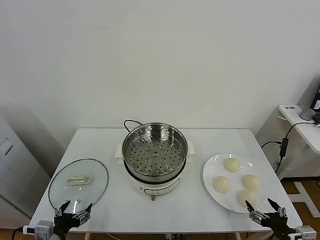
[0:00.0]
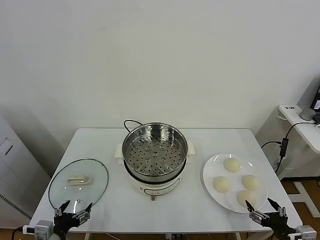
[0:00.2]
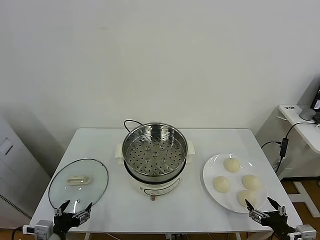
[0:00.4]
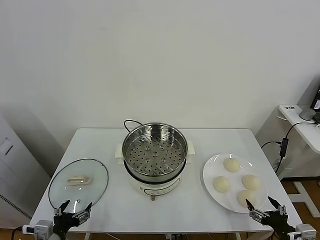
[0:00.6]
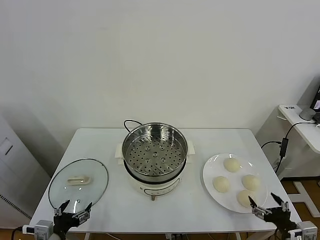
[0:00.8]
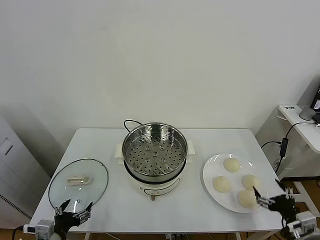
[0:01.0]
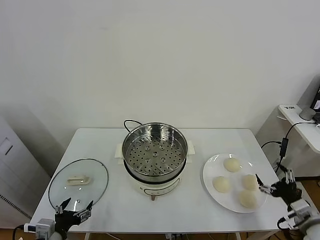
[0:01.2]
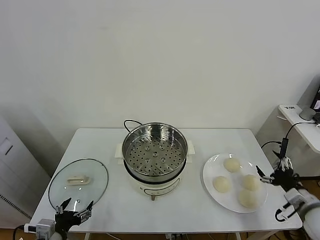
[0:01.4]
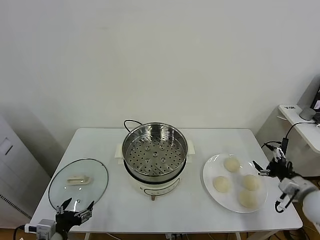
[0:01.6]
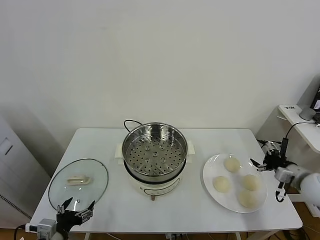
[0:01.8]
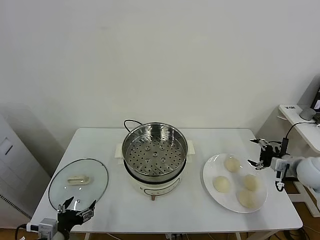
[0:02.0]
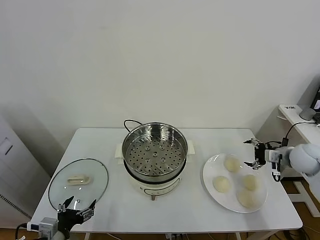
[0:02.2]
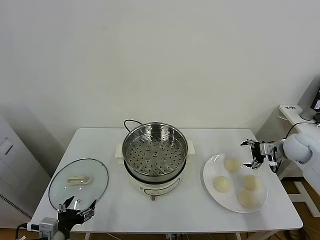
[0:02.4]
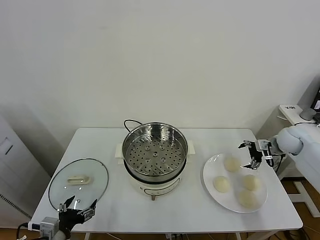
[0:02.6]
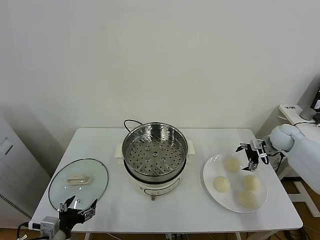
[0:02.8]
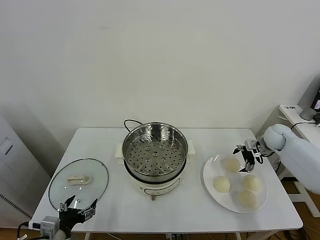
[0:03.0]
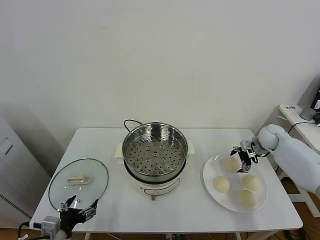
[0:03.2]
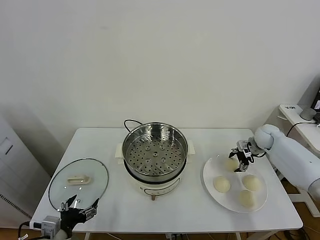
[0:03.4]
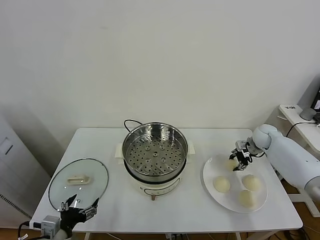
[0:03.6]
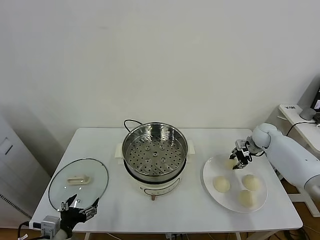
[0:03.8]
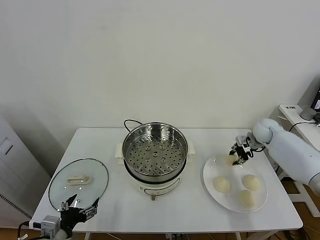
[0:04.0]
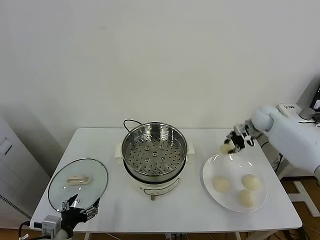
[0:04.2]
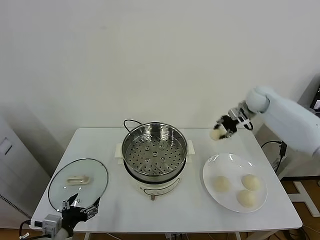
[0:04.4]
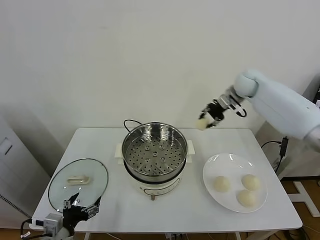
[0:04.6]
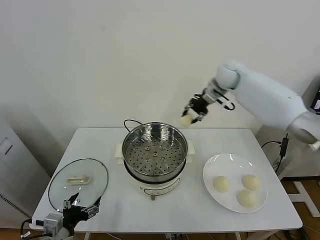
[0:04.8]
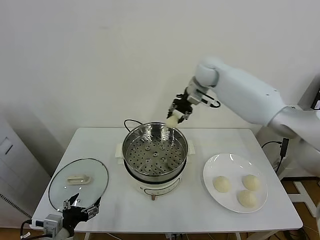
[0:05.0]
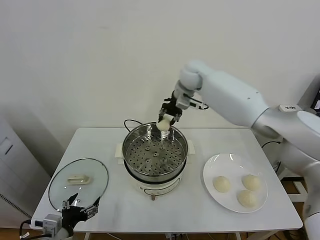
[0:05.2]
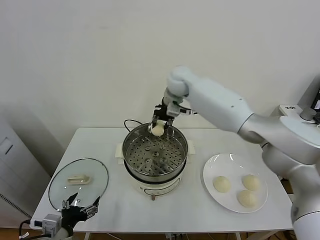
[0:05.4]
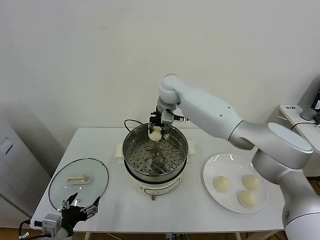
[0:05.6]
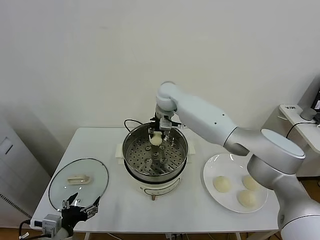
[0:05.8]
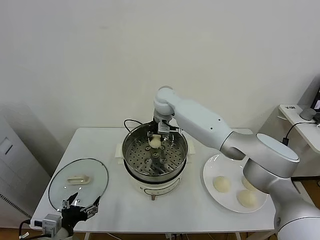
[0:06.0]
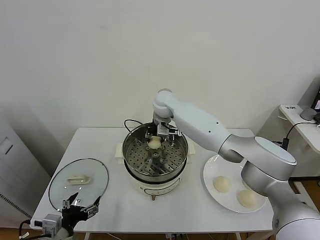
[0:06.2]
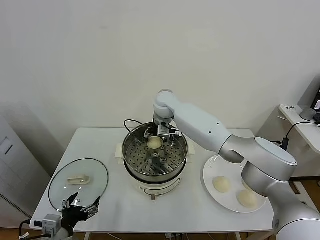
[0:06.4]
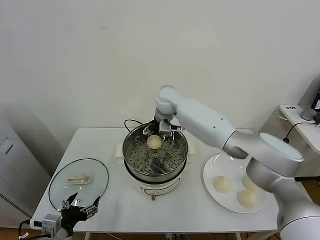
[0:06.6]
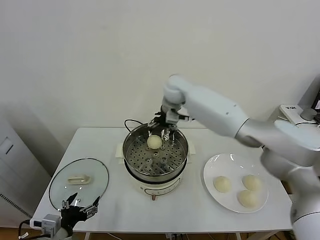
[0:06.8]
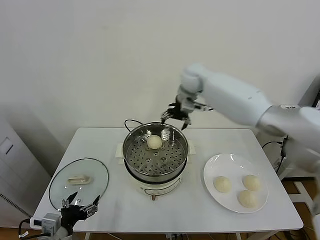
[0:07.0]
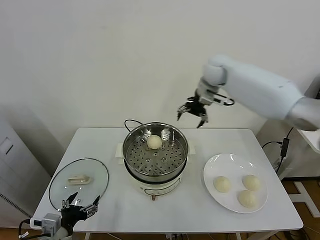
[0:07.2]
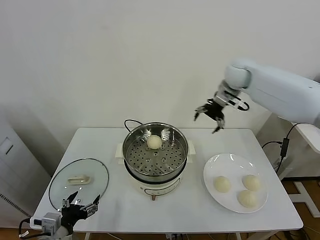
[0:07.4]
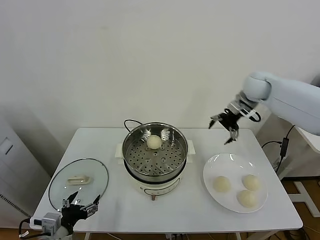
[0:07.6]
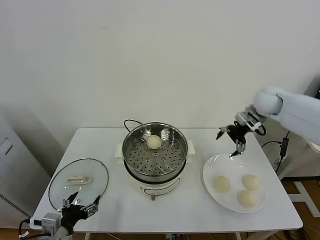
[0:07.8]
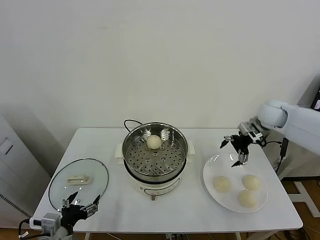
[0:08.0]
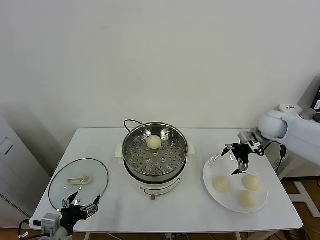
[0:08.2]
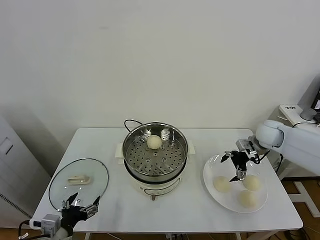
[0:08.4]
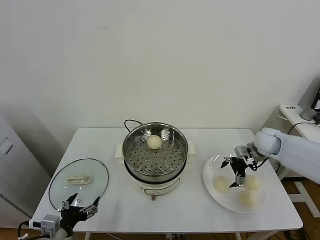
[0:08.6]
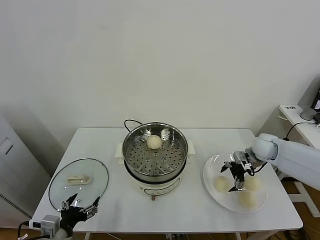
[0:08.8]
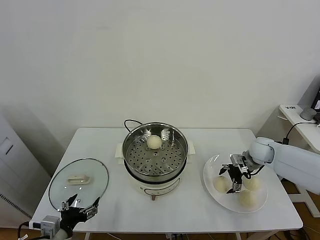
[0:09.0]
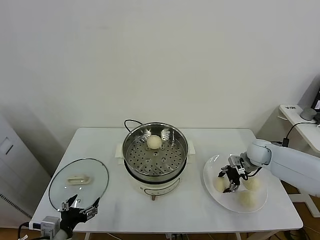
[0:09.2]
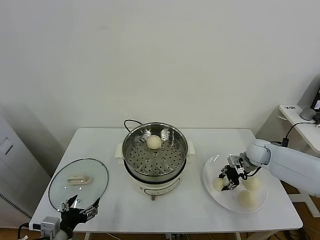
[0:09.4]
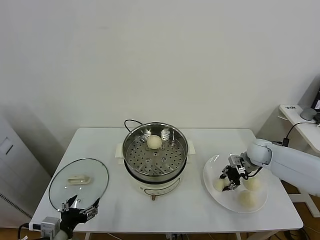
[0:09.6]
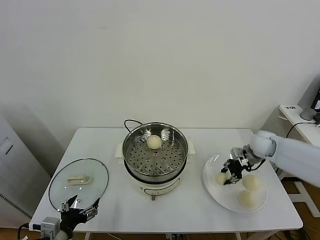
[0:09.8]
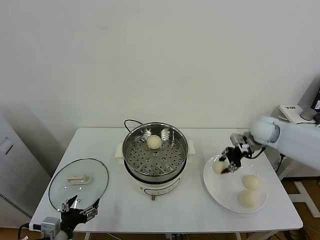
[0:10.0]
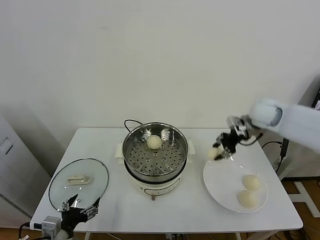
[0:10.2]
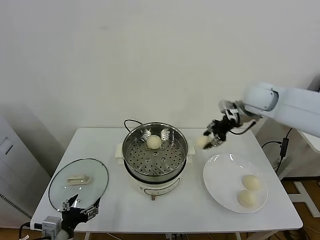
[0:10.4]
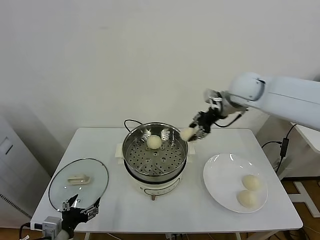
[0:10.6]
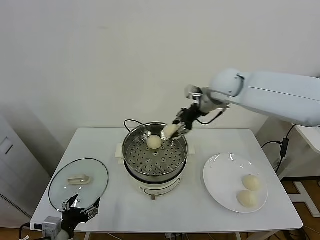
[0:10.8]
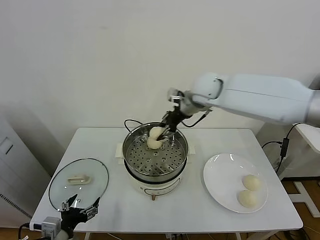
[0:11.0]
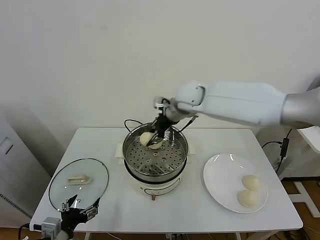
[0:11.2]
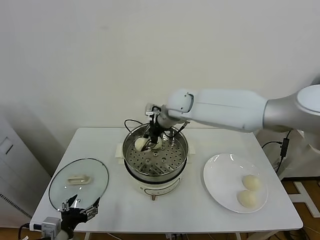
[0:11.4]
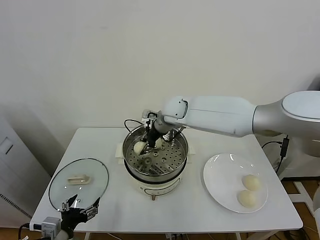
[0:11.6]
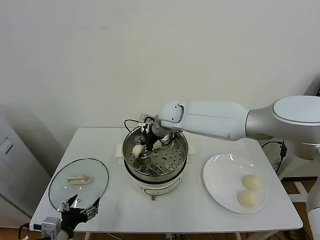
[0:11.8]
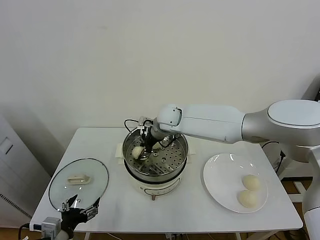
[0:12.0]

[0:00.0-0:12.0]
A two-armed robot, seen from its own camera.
Task of the whole recording: take steamed baozi put them in steamer.
Step, 0.0 to 3.6 s: Grasp the baozi in the plate with right gripper.
Step, 3.8 to 6.4 s: Place the baozi on the steamer with right gripper.
Step, 6.6 to 9.4 s: Grasp the baozi in the plate with right gripper.
1.6 to 3.0 s: The right gripper is displaced forward by roughly 25 cm.
3.0 to 4.4 s: The right gripper goes approximately 20 cm upward, to the left and forward, and closes its fingers.
4.4 to 6.0 s: The right gripper is displaced to the left by approximately 30 cm.
6.0 to 7.6 s: The right gripper travels to the right by about 35 cm, and opens up.
7.6 to 9.0 s: The right gripper moves downward, roughly 20 cm.
9.0 to 10.4 s: The right gripper heads upward and to the left, covering roughly 25 cm, and closes its fingers.
10.4 to 12.0 s: The right gripper travels to the left and downward by approximately 30 cm.

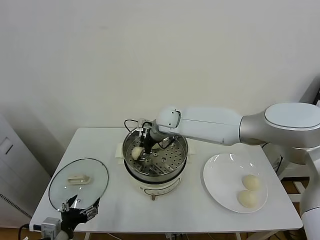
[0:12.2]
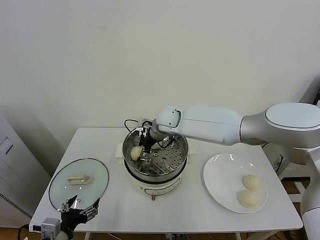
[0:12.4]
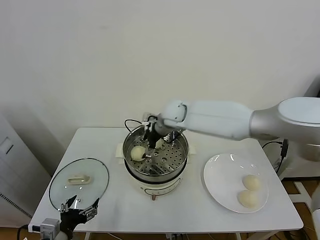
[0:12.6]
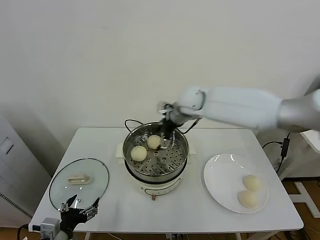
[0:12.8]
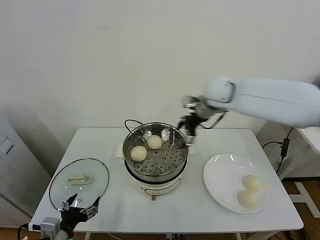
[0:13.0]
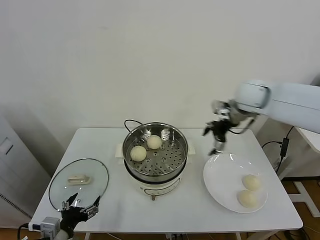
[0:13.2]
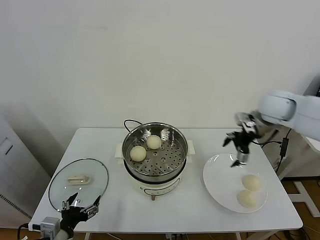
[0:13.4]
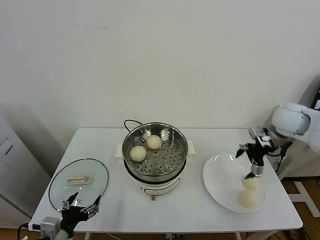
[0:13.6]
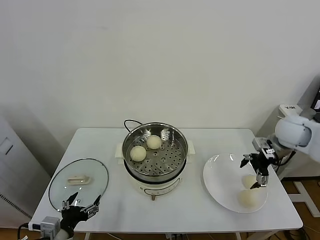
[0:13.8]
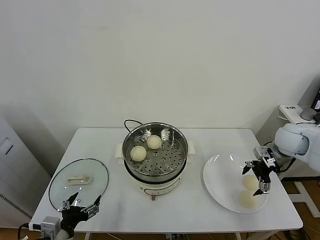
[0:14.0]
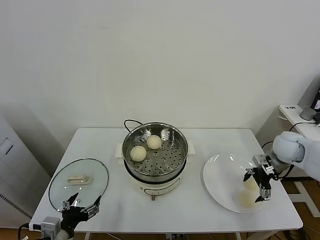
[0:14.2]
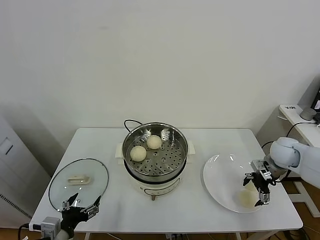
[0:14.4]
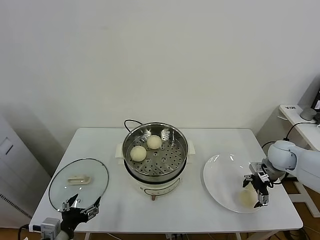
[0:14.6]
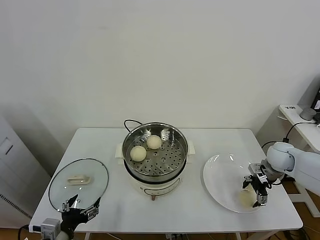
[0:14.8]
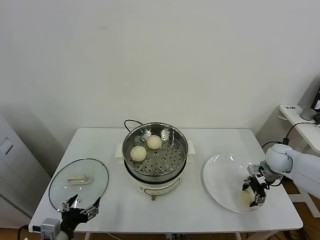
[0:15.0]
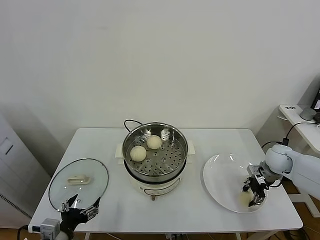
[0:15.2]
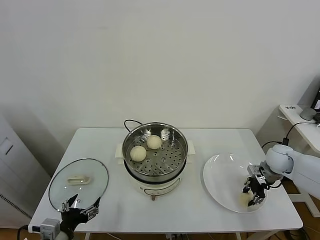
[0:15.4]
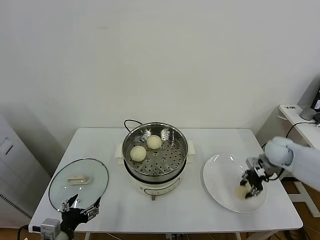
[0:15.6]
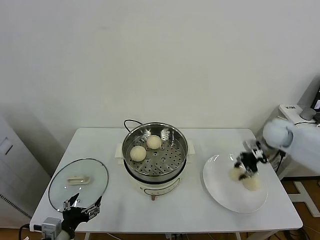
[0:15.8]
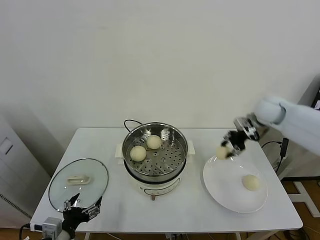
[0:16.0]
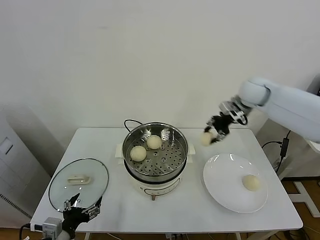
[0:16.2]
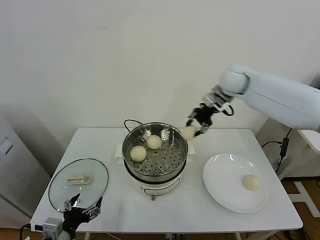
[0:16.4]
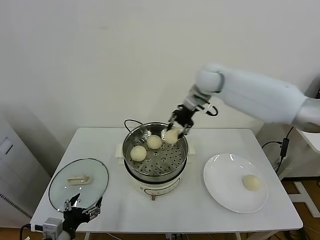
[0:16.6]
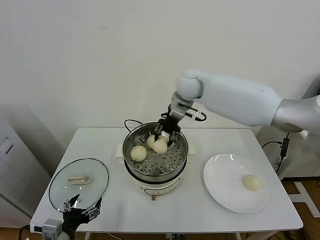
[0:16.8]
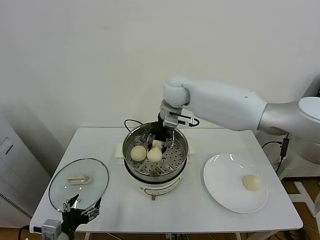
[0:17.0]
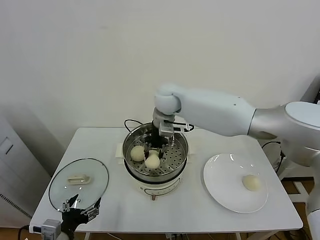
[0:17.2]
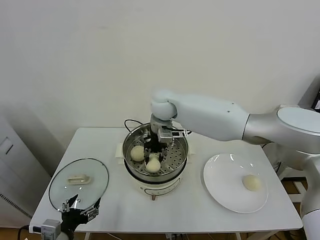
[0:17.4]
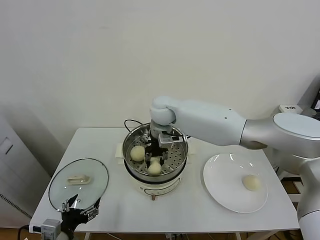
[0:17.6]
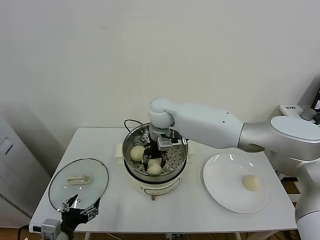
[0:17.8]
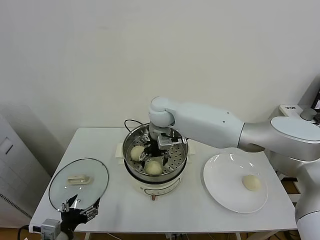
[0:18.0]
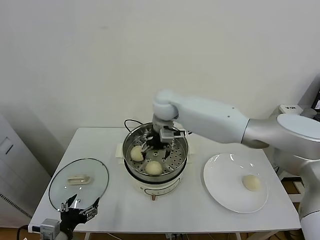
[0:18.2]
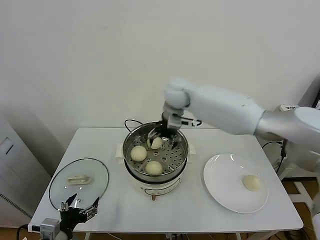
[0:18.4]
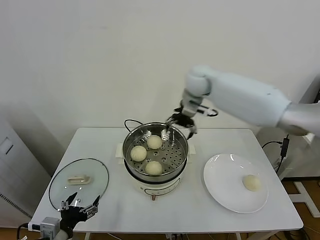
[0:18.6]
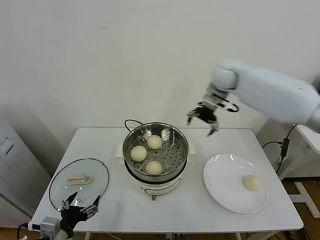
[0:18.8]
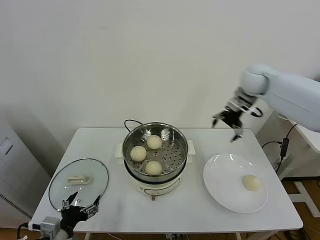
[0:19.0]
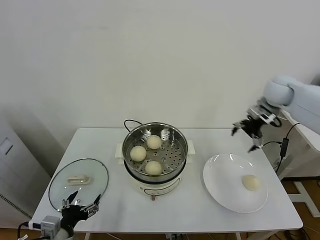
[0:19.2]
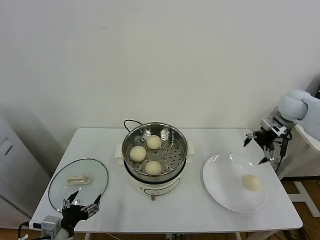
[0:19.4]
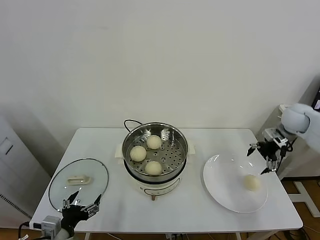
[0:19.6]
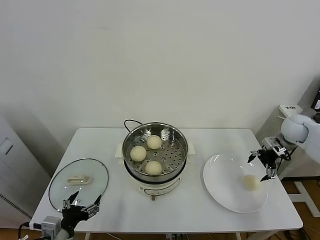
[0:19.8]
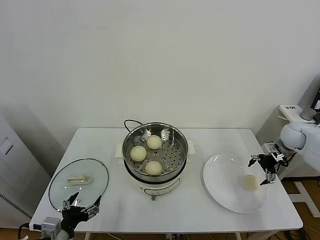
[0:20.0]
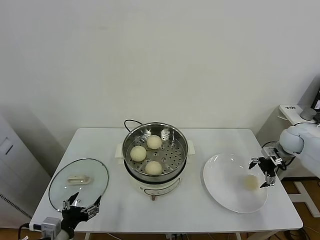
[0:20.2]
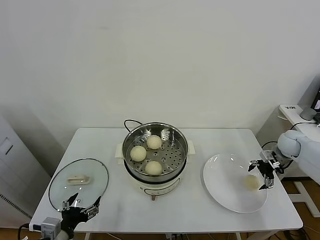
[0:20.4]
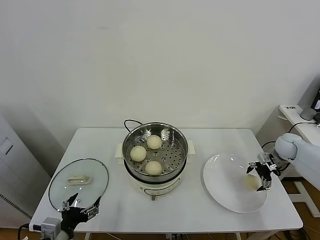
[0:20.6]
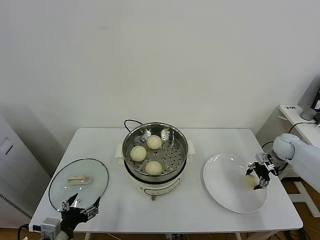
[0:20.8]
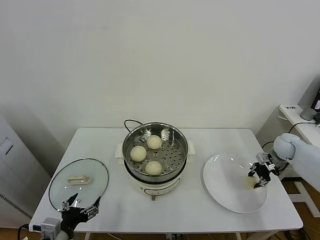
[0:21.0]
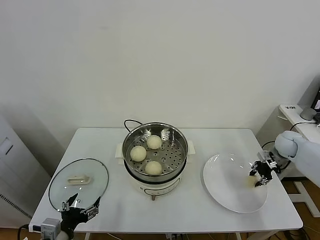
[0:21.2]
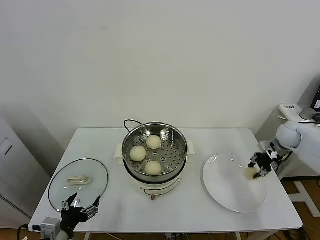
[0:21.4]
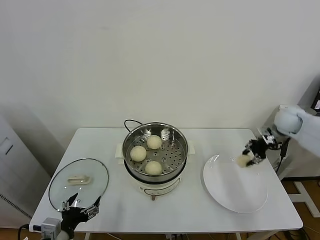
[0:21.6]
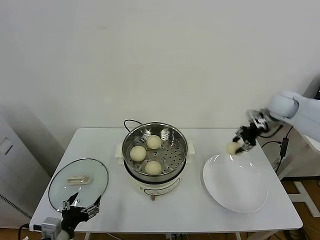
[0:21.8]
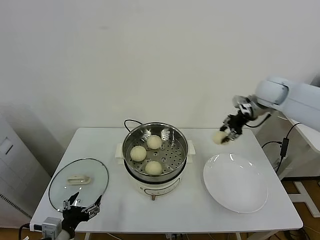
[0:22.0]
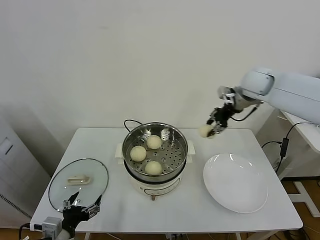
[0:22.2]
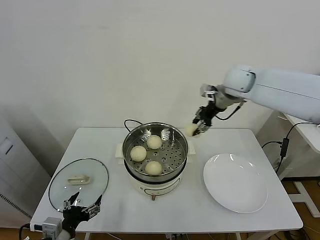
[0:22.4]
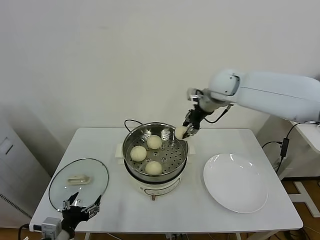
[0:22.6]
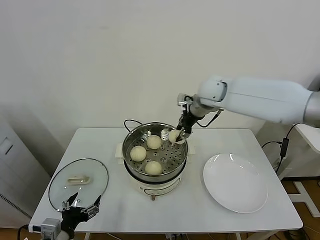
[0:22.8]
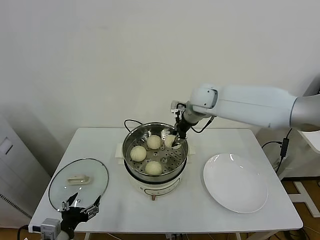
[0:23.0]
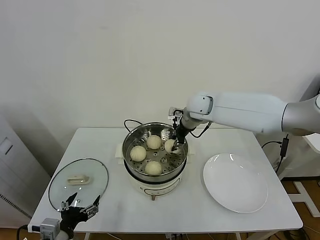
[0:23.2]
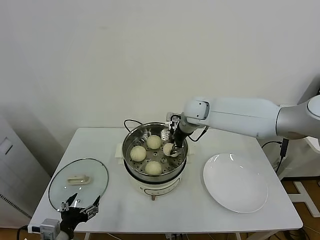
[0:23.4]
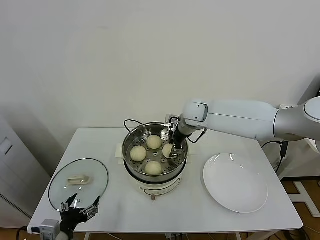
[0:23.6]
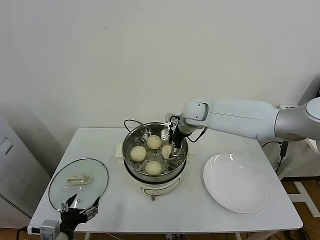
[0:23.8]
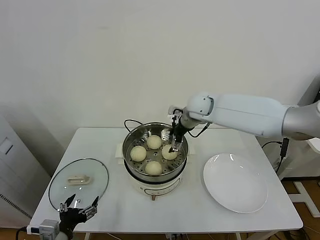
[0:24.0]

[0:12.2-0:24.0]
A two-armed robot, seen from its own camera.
Task of the whole recording: take steamed baozi put them in steamer.
Step, 12.8 to 15.0 s: Grasp the baozi in the plate with right gripper.
Step, 15.4 to 18.0 s: Place the baozi on the steamer with right gripper.
Step, 18.2 to 21.0 s: Grasp the baozi in the plate with right gripper.
Step, 21.2 to 23.8 s: Place the baozi on the steamer with right gripper.
12.2 to 13.6 s: The right gripper goes roughly 35 cm to the right, and opens its fingers.
13.6 to 15.2 s: The right gripper goes roughly 15 cm downward, and closes.
15.2 to 16.6 s: The right gripper travels to the left, upward and forward by roughly 40 cm.
16.6 to 18.2 s: The right gripper is displaced to the left and downward by roughly 15 cm, and opens.
18.2 to 19.6 s: The right gripper travels to the right by roughly 40 cm.
19.6 to 21.0 s: The right gripper is displaced downward by about 15 cm, and closes its fingers.
21.0 to 22.6 s: The right gripper shifts some 40 cm to the left and upward.
22.6 to 24.0 s: The right gripper travels downward and to the left by roughly 10 cm, and opens up.
